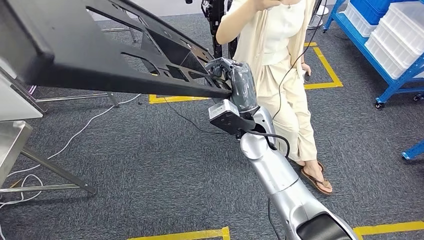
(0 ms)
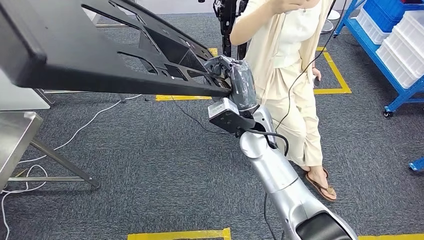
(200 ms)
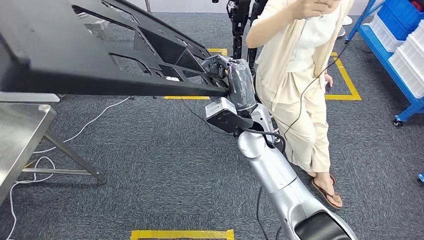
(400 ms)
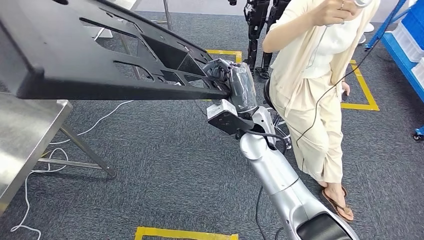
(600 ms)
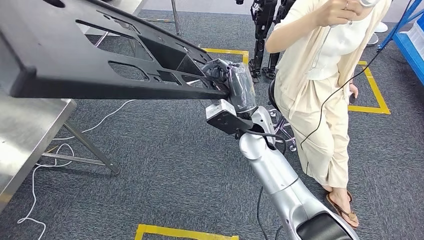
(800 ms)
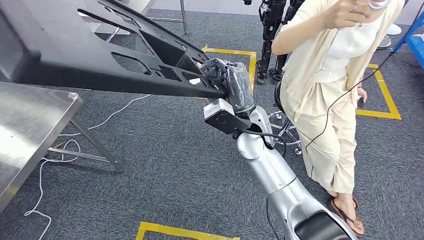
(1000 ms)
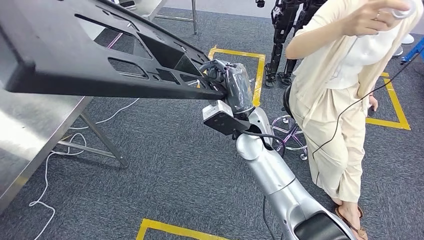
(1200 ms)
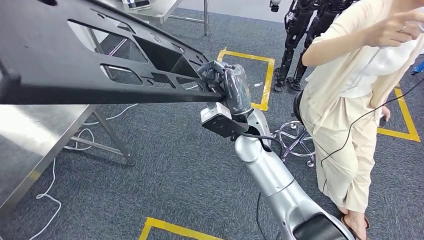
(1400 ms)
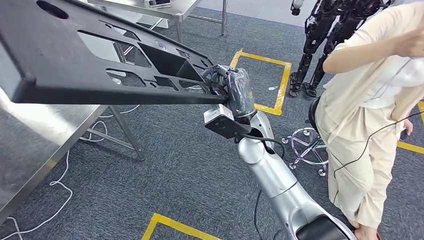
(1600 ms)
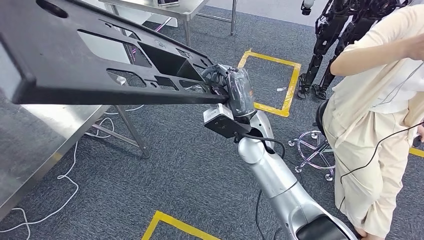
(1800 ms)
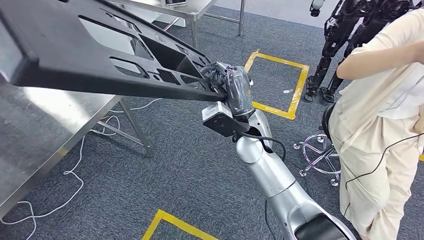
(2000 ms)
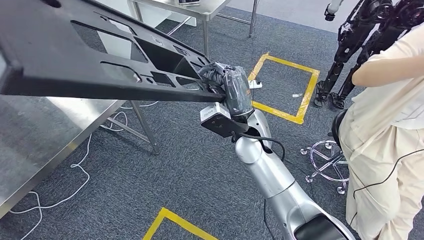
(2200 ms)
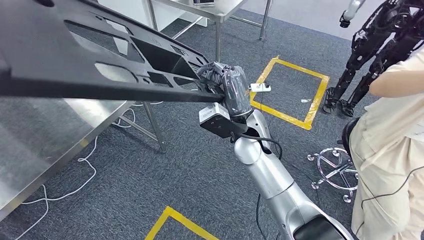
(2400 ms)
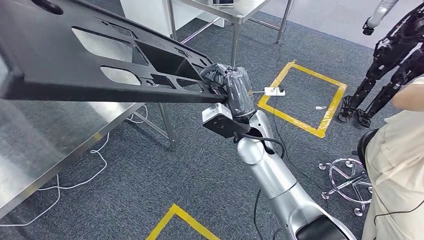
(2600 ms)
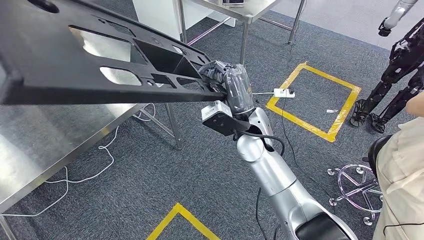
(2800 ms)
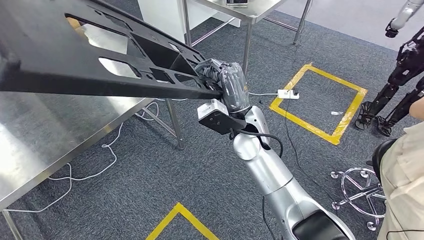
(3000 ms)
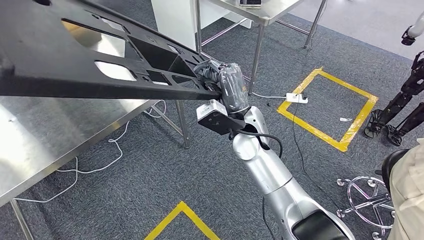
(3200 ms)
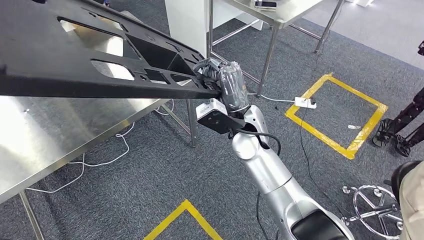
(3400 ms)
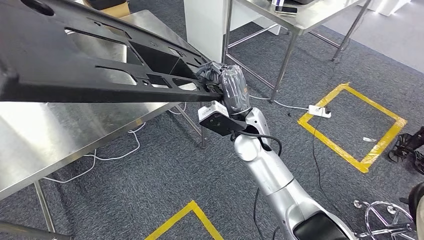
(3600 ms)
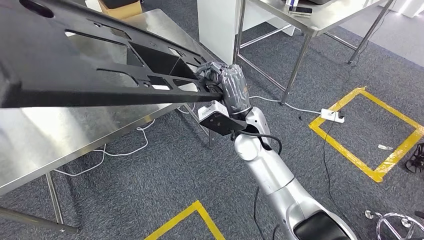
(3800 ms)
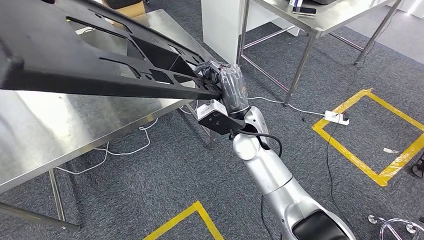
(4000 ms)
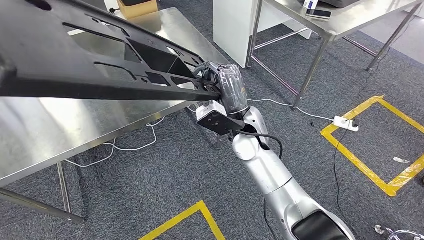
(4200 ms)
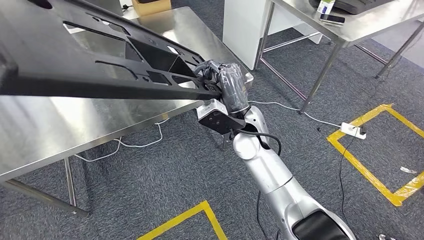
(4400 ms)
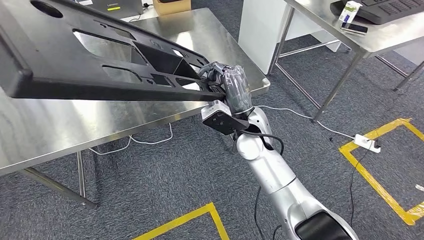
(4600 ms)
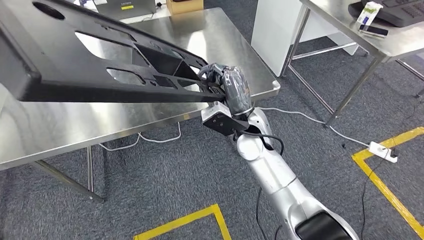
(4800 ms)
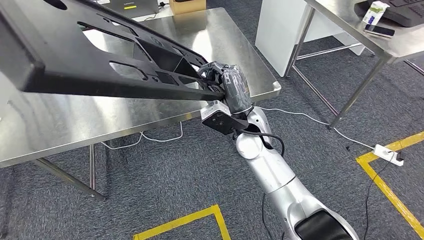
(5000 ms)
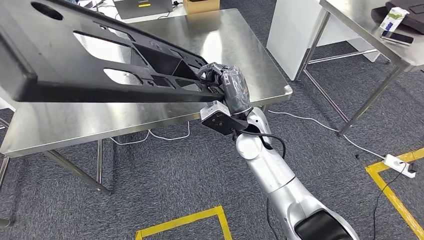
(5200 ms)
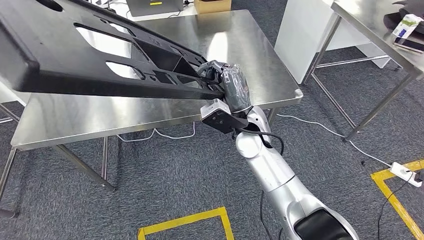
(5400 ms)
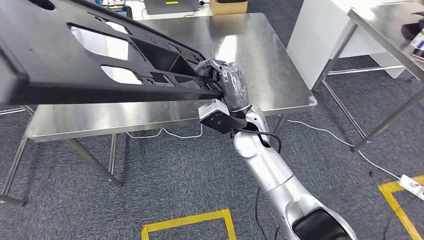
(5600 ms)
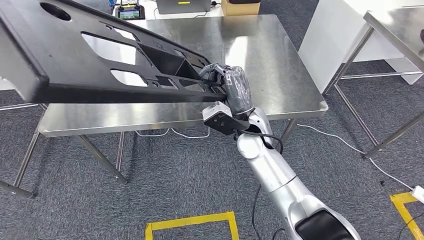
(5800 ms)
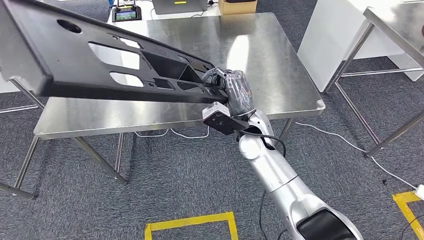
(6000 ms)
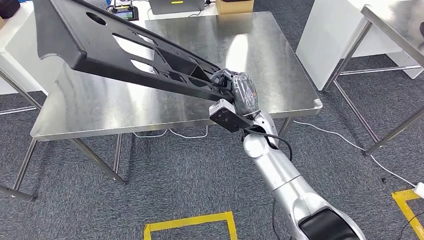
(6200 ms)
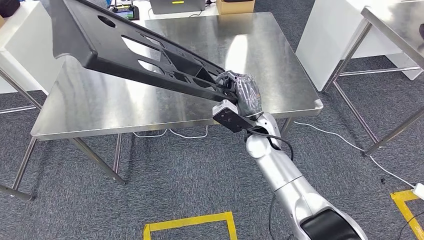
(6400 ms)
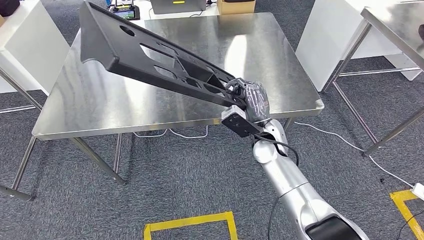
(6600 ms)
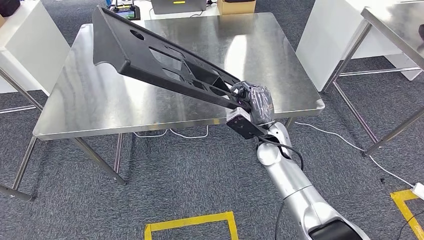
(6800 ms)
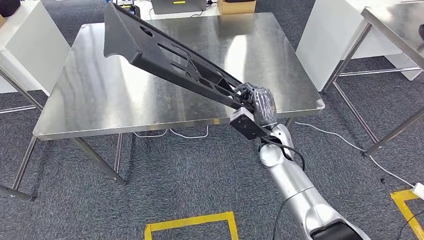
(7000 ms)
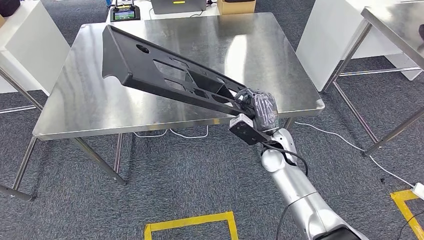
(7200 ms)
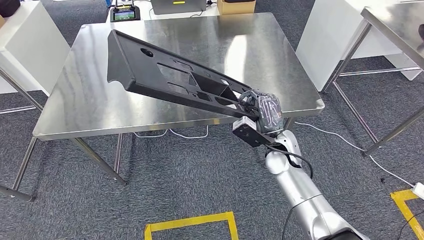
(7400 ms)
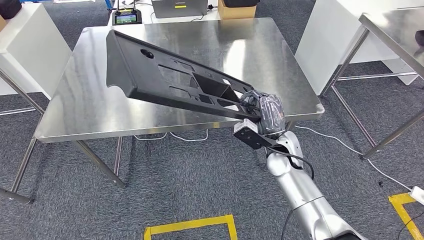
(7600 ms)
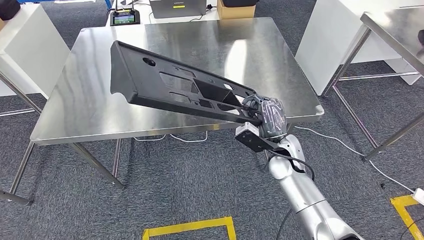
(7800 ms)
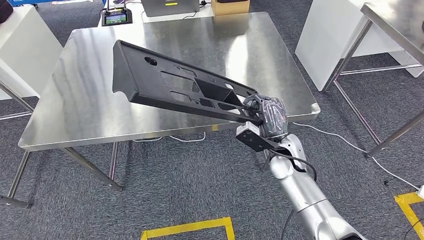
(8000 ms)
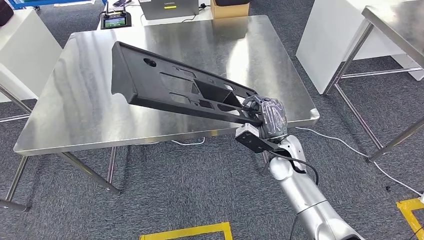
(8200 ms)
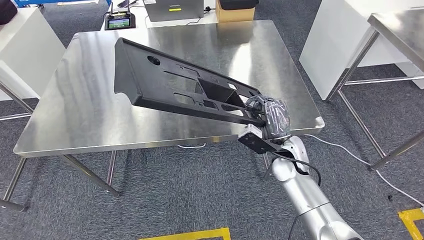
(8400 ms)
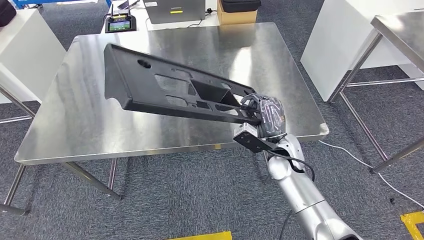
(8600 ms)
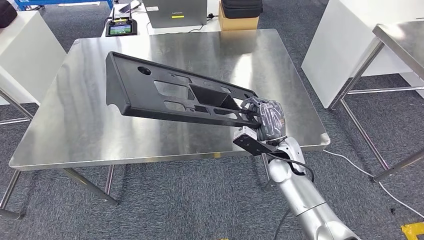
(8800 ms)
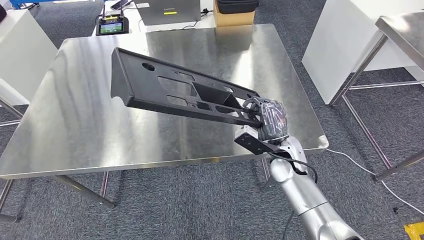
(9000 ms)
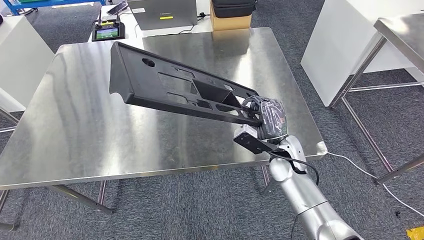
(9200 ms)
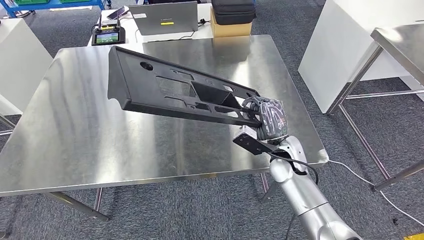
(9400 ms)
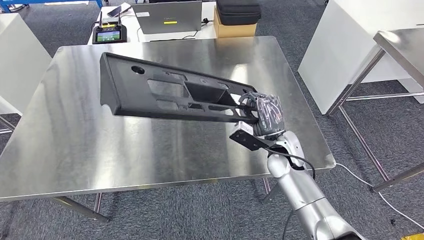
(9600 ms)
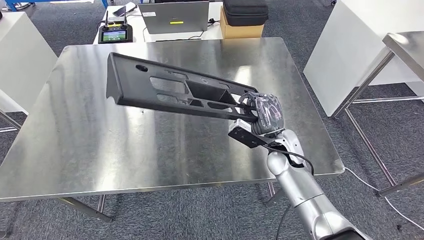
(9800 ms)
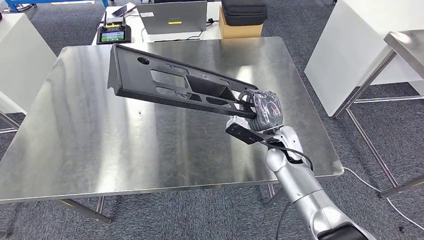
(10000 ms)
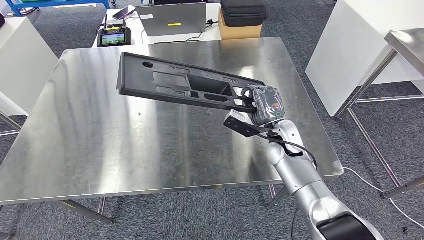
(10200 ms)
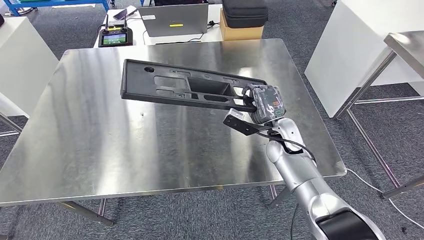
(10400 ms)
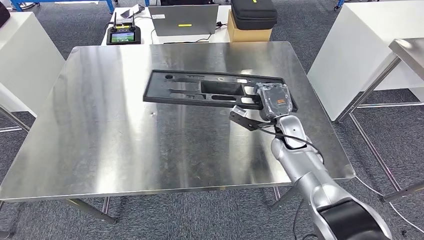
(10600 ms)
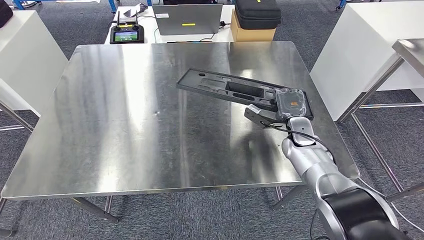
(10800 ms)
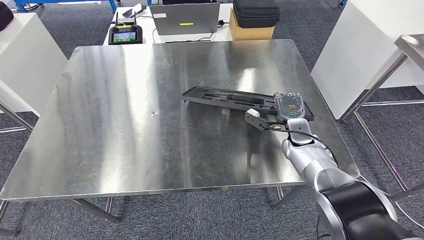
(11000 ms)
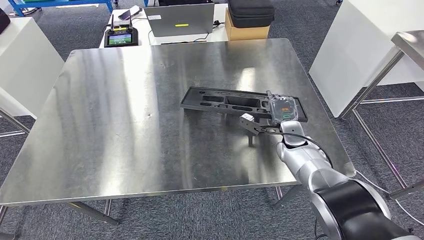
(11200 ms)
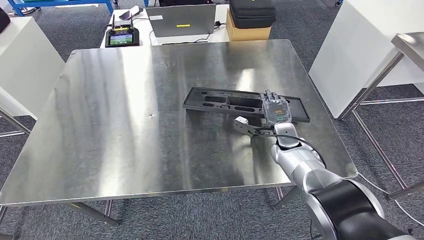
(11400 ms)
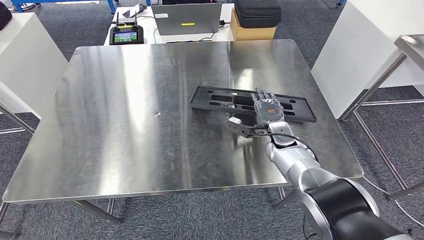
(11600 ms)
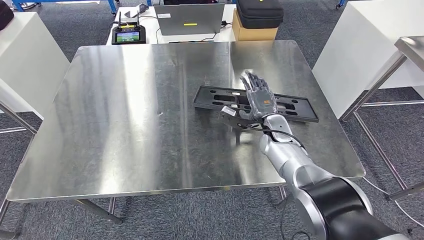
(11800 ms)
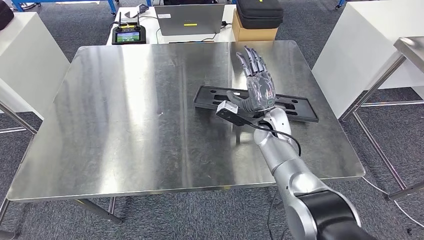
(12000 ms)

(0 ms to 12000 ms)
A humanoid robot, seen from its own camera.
Step, 0 ms - 5600 ms: Move the large material to the workbench.

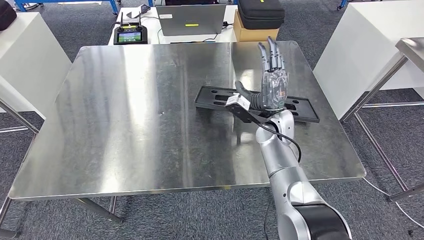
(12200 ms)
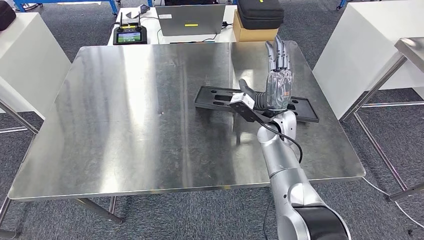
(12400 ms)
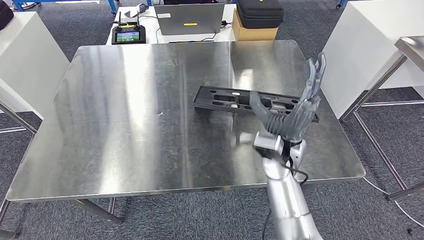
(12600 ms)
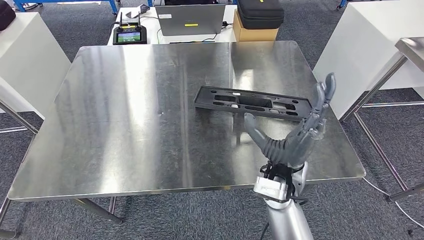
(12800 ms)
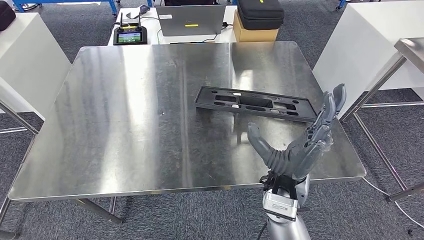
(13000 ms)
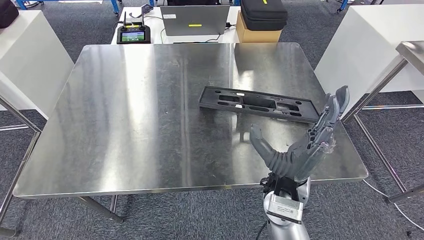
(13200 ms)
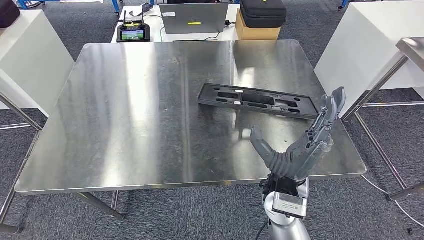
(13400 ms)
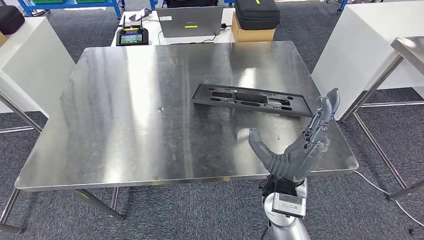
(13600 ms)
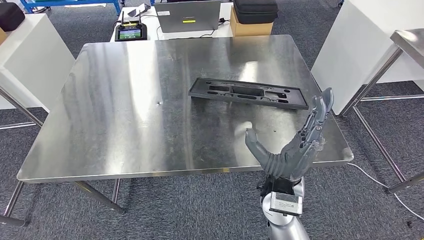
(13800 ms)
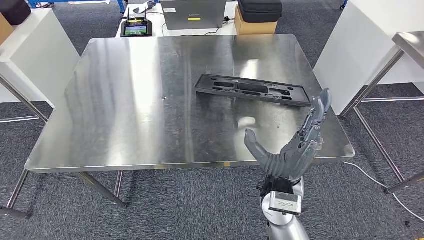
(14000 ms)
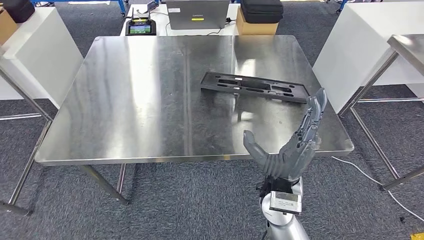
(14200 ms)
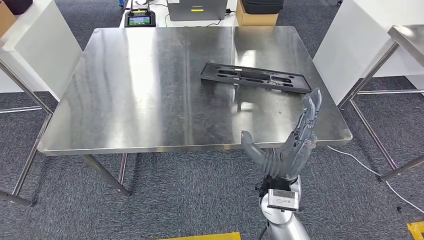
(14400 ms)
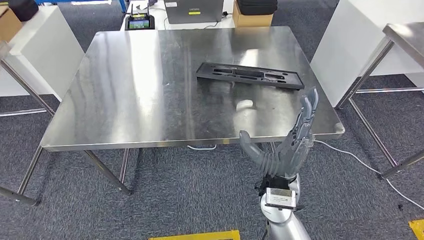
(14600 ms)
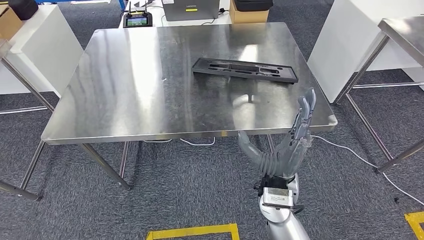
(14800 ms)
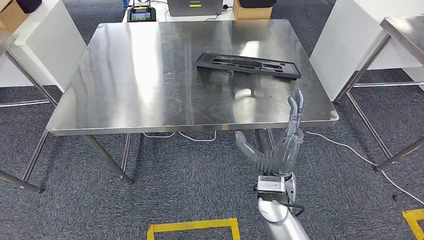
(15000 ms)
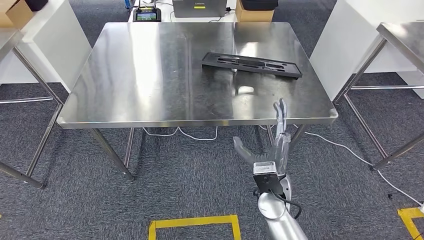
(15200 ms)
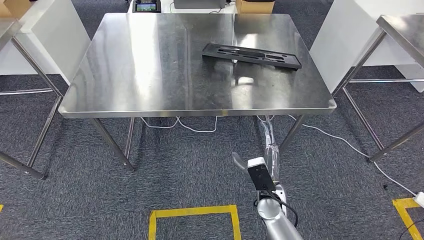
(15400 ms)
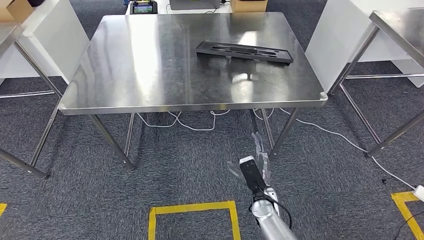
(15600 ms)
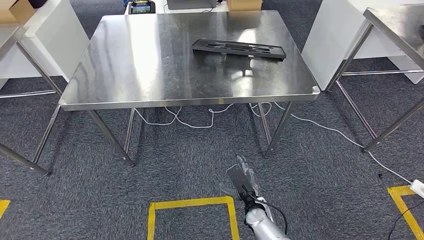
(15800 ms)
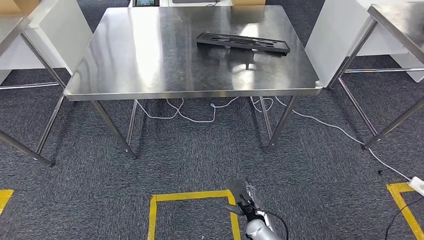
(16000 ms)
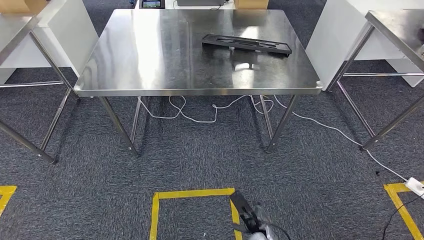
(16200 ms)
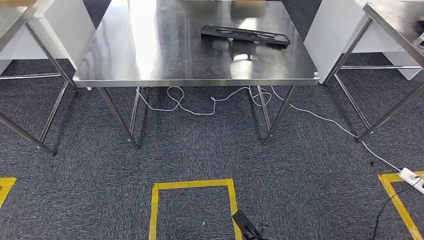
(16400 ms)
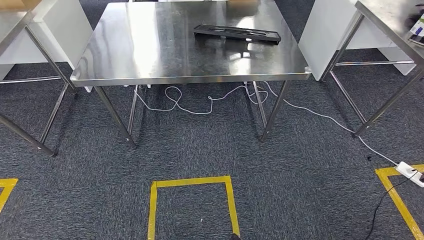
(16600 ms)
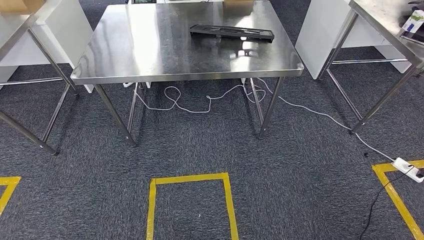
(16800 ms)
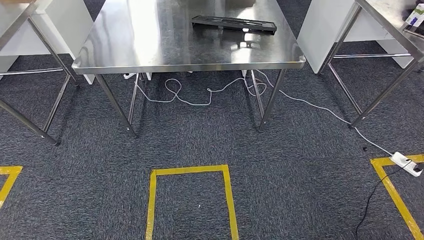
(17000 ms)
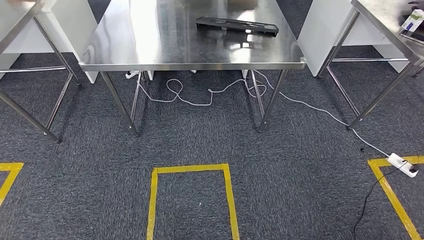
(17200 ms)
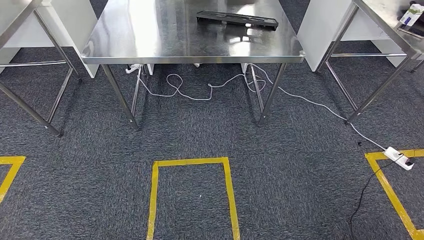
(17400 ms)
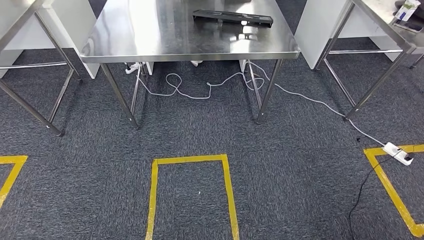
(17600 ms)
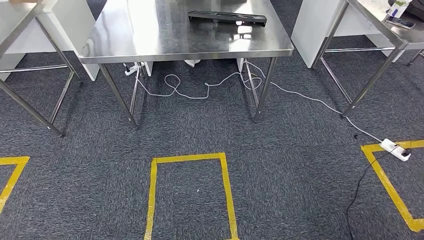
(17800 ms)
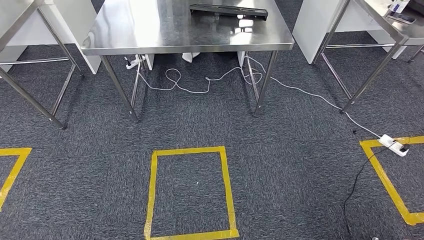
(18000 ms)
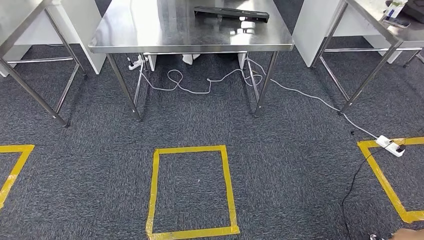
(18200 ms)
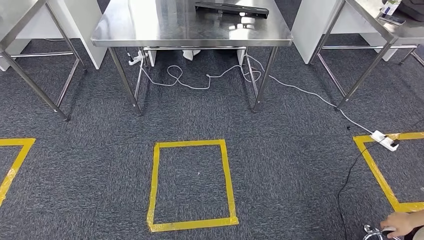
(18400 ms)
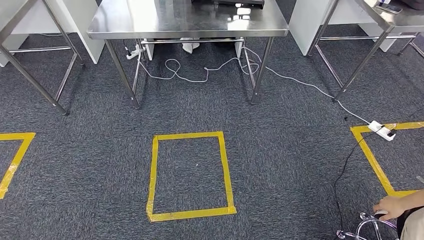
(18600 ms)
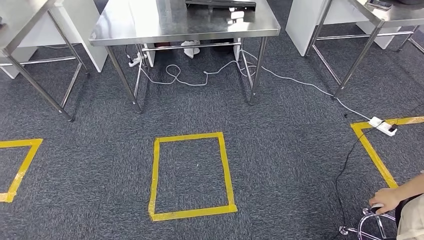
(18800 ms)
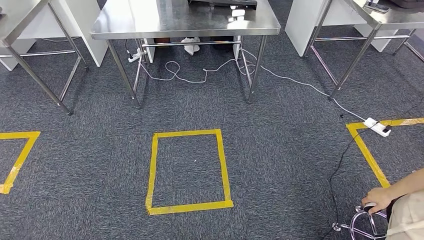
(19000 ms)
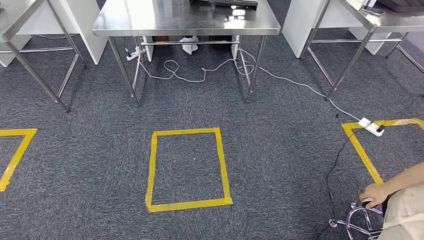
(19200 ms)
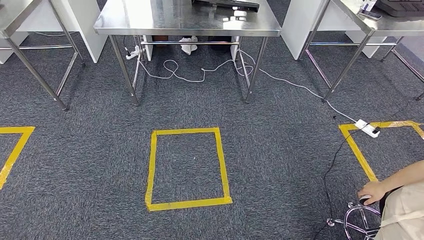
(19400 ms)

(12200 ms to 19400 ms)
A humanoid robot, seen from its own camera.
Step, 12200 ms - 16200 ms: Insert the large material into the corresponding slot on the workbench.
